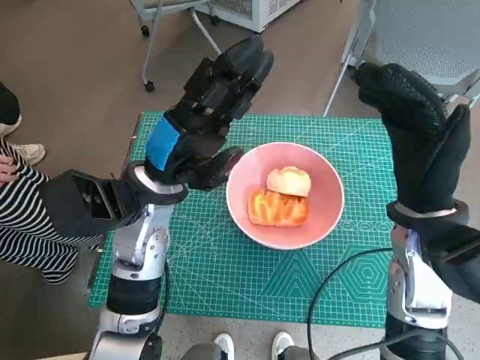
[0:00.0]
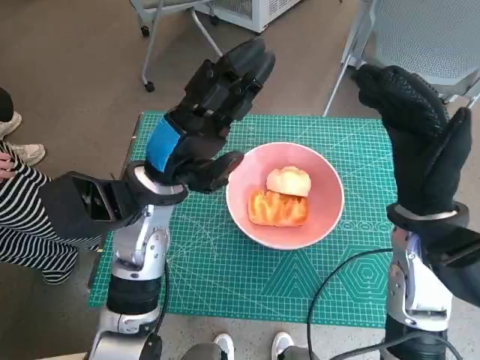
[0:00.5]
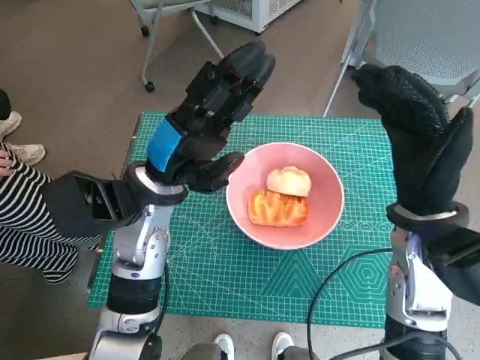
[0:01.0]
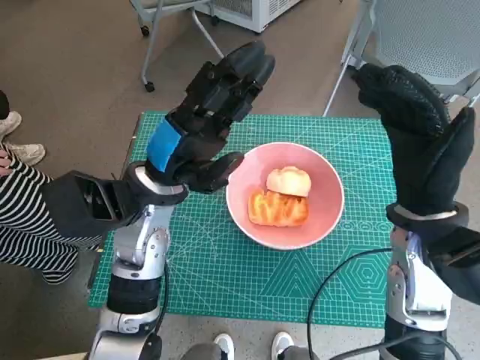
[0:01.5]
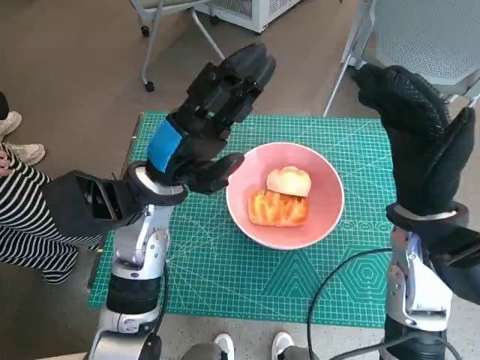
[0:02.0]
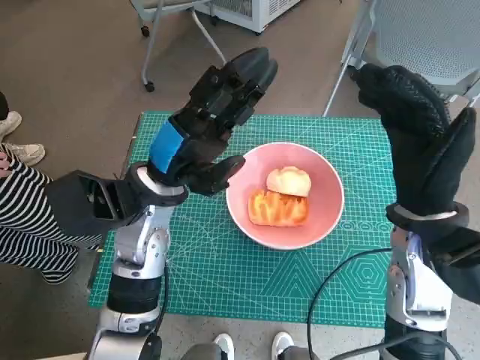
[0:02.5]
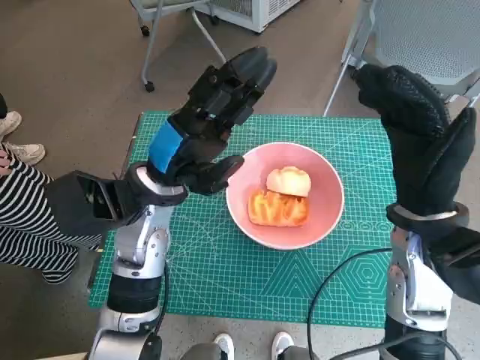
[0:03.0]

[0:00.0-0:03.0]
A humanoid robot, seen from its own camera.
Task of the whole recording: Push the bowl into the center of the table and put the bread into the bowl.
0:00.0 to 0:03.0: Both hands stay about where they are.

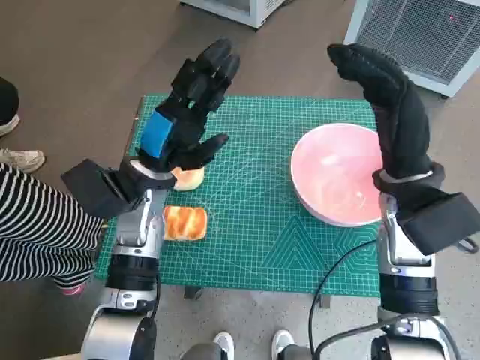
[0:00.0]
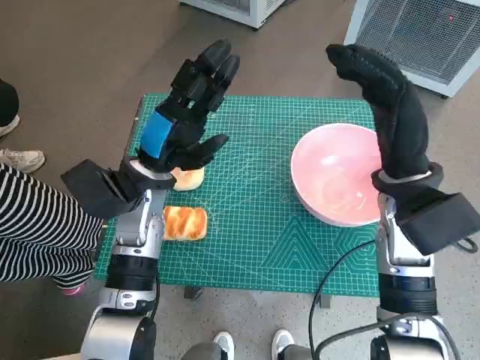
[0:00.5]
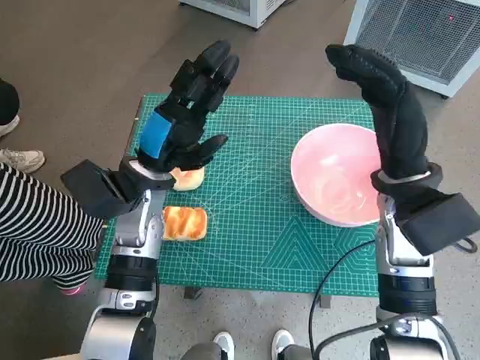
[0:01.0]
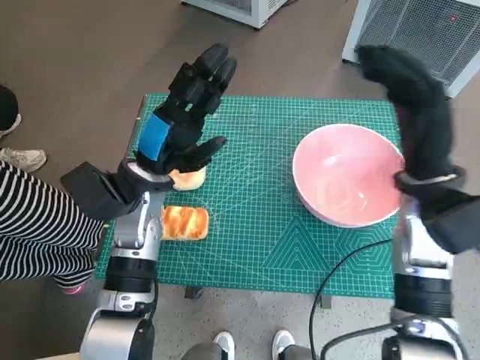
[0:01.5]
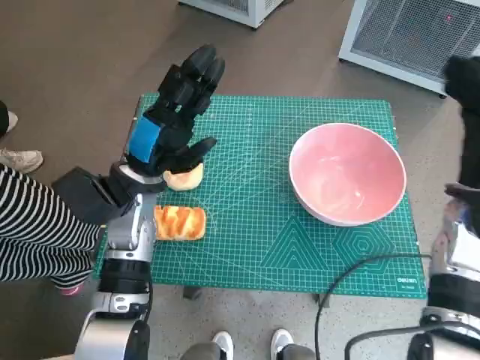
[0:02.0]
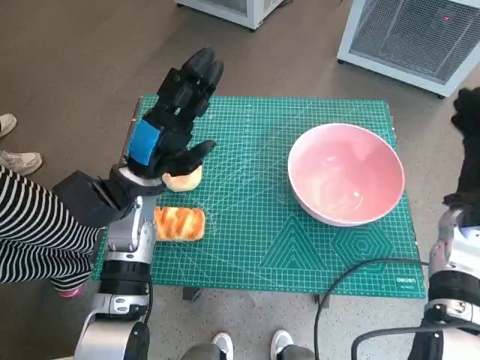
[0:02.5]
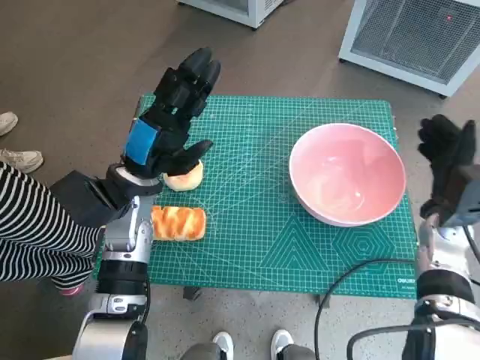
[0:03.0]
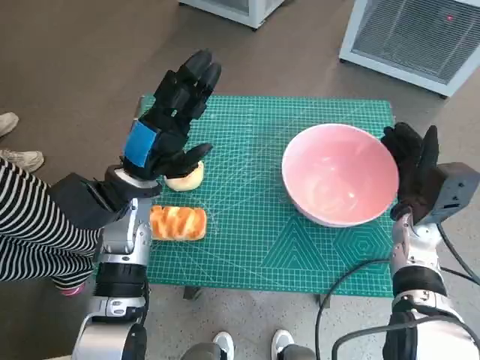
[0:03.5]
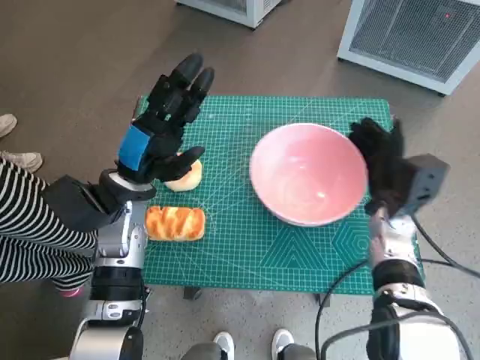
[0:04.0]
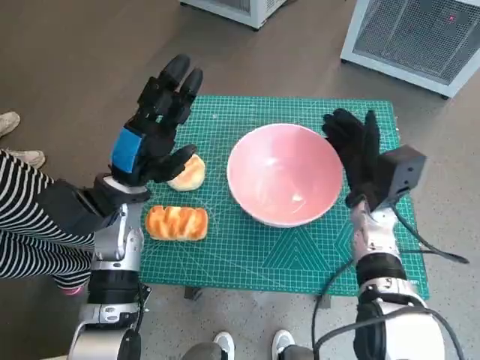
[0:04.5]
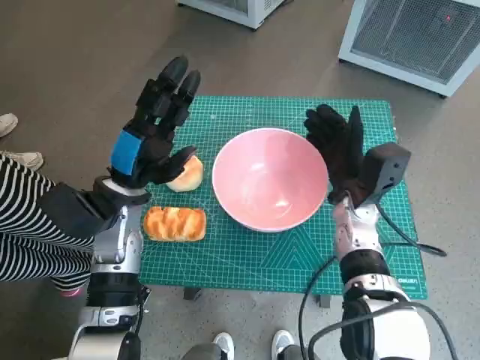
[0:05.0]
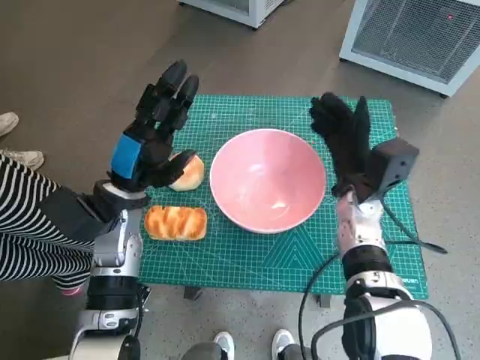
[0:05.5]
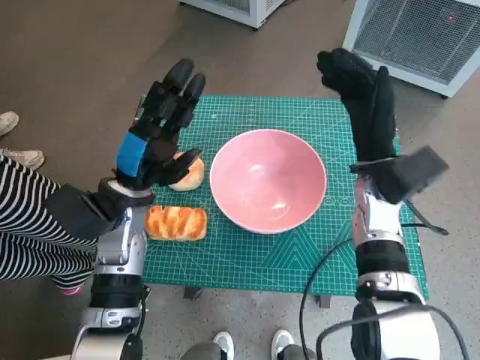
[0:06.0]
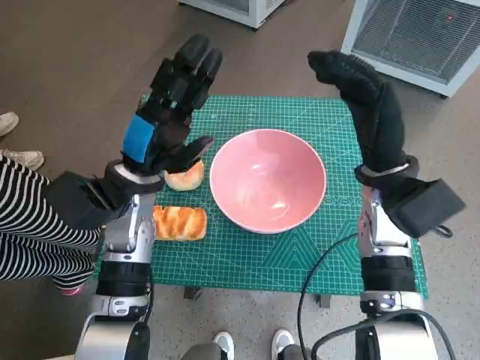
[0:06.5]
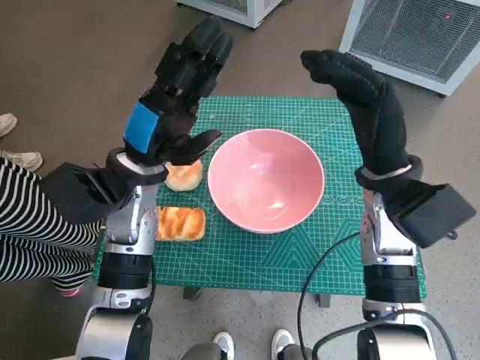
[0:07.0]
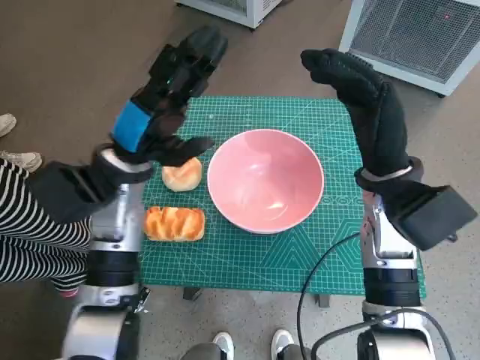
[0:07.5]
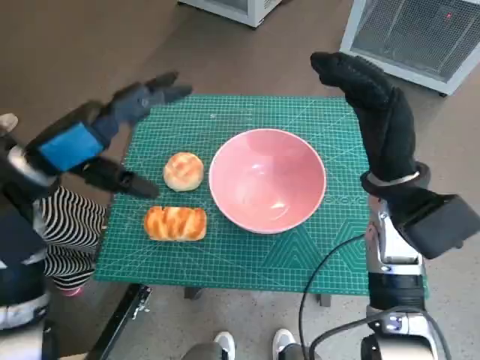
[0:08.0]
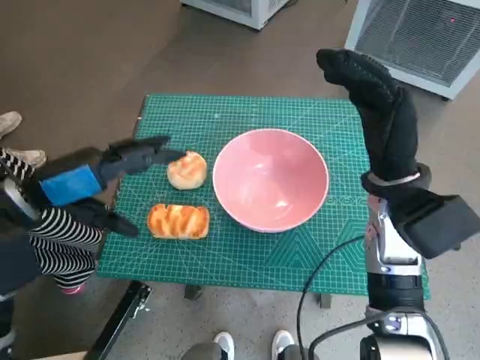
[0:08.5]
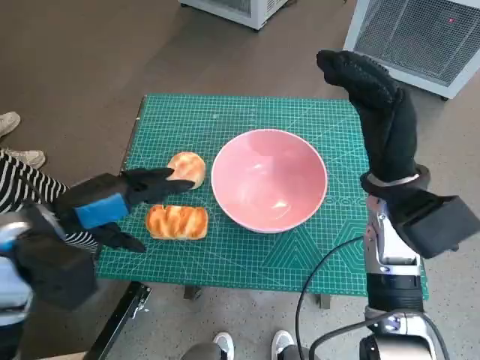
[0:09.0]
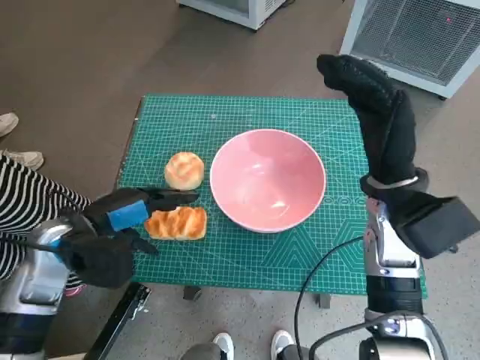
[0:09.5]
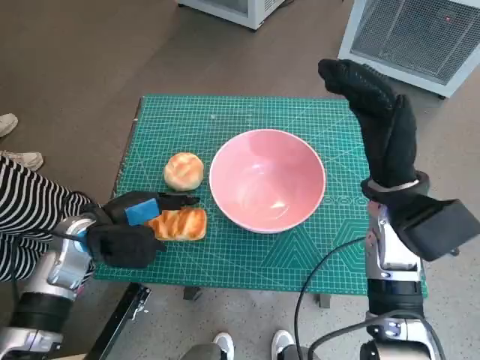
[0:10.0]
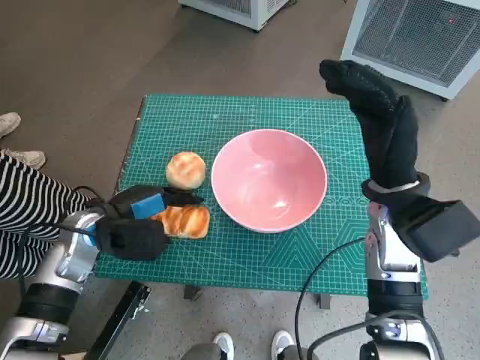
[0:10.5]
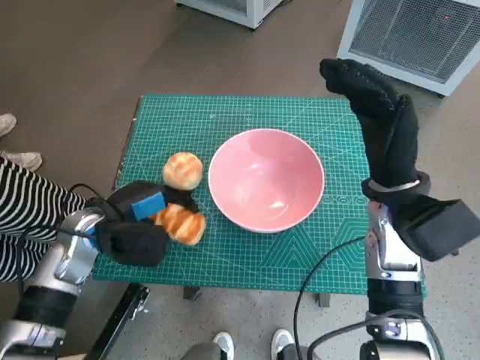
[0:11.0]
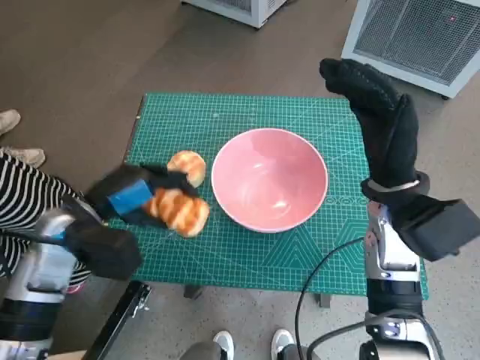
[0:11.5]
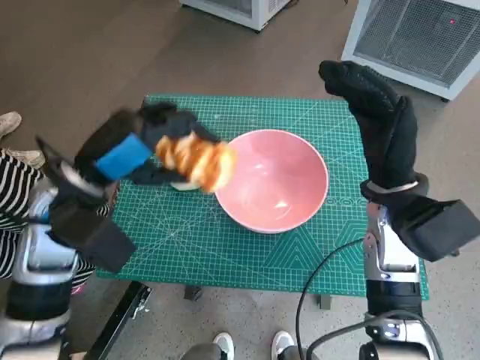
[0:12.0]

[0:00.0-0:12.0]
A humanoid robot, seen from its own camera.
Task of the whole recording: Push the bowl into the center of the table and put the bread into the bowl.
Step, 0:00.0 to 0:05.0: Move the pink bowl to the center of table with right hand.
Step, 0:06.0 to 0:10.5: Grasp the long bread with left hand.
0:02.0 to 0:04.0: The right hand moves downward and to the left, about 10 cm.
0:04.0 to 0:06.0: The right hand goes about 5 cm upward.
0:06.0 to 0:08.0: The left hand is displaced upward and to the left by some 10 cm. Meanwhile the right hand ends up some 5 cm from where it was.
0:08.0 to 0:10.0: The left hand heads downward, covering approximately 15 cm.
0:10.0 to 0:12.0: The left hand shifts approximately 10 cm upward.

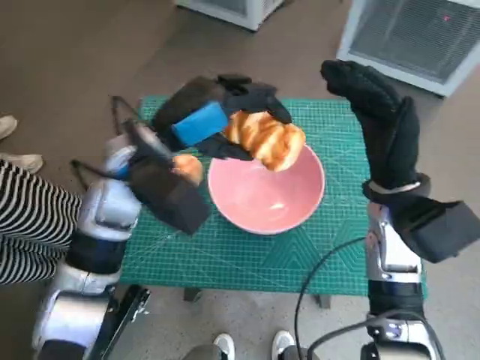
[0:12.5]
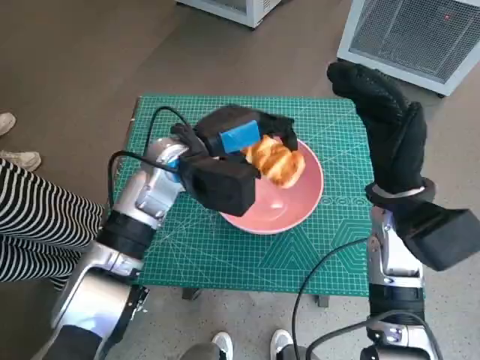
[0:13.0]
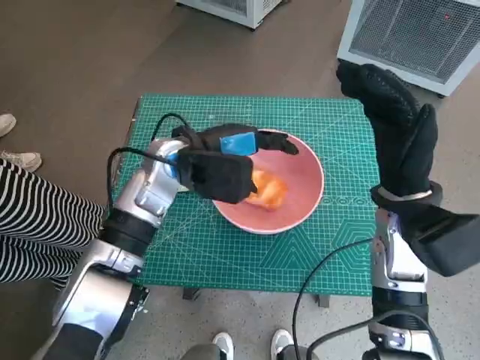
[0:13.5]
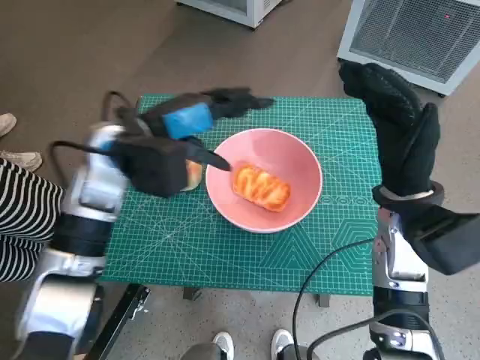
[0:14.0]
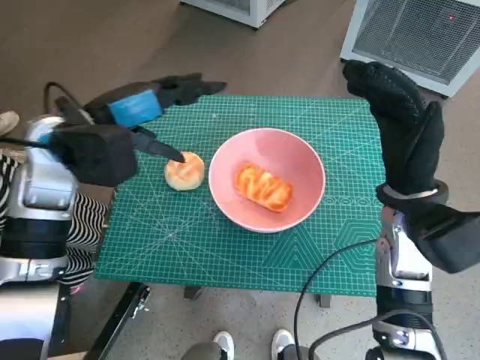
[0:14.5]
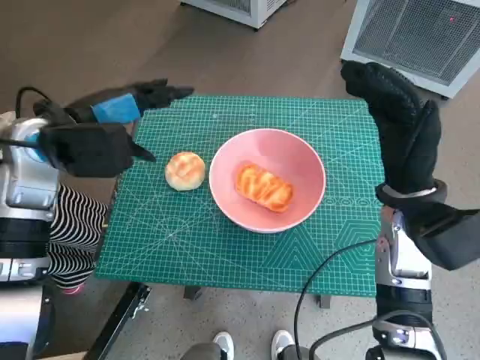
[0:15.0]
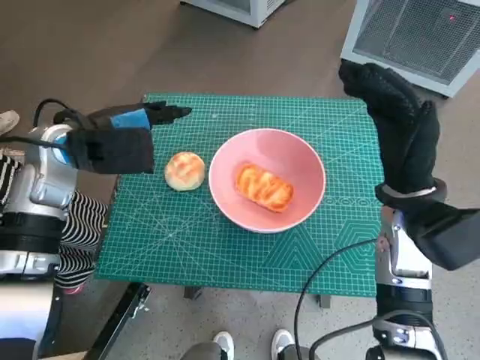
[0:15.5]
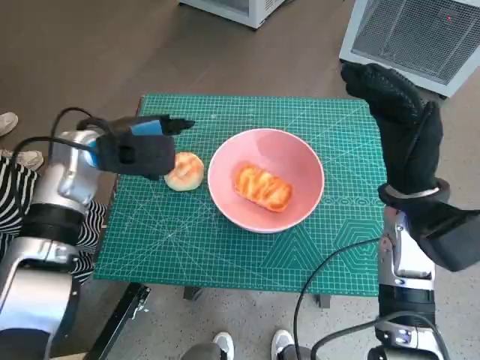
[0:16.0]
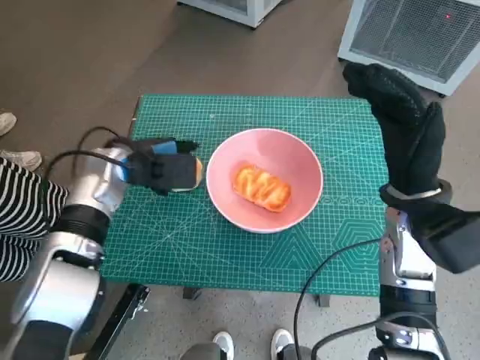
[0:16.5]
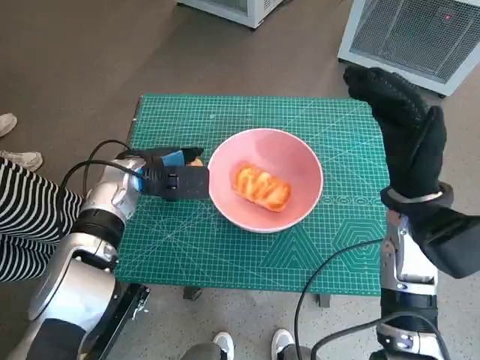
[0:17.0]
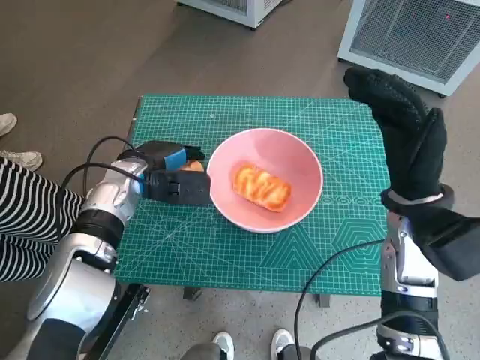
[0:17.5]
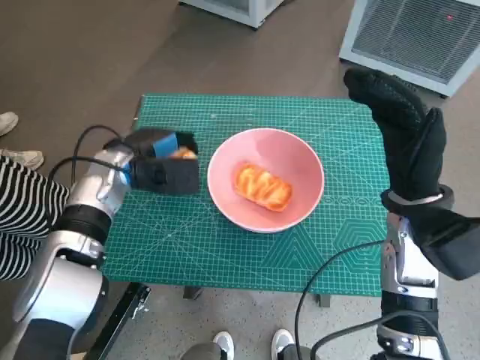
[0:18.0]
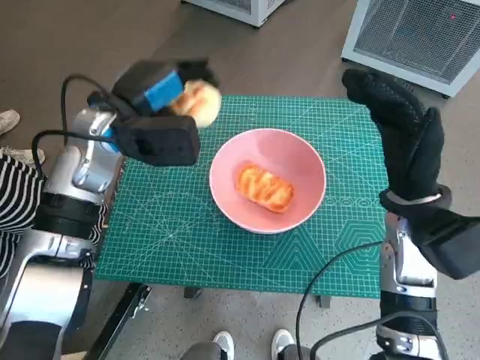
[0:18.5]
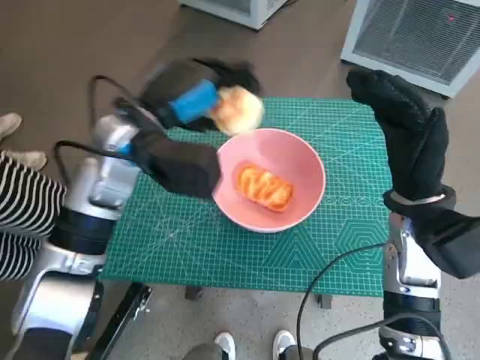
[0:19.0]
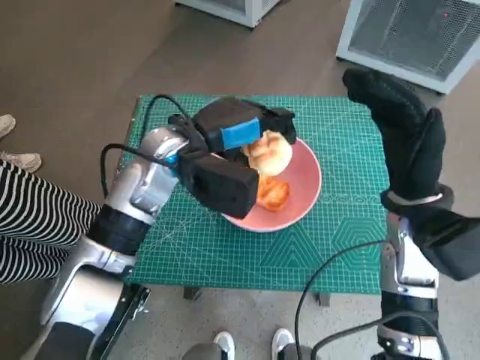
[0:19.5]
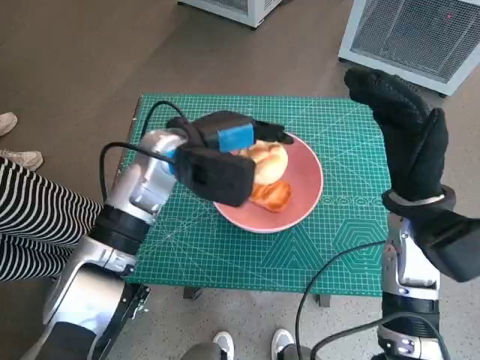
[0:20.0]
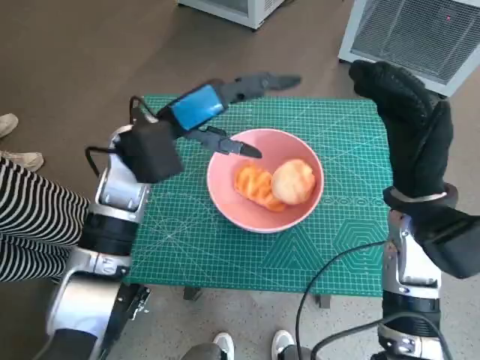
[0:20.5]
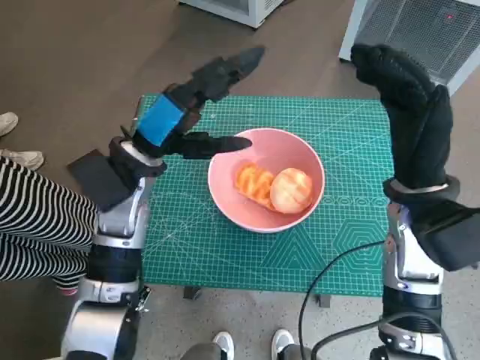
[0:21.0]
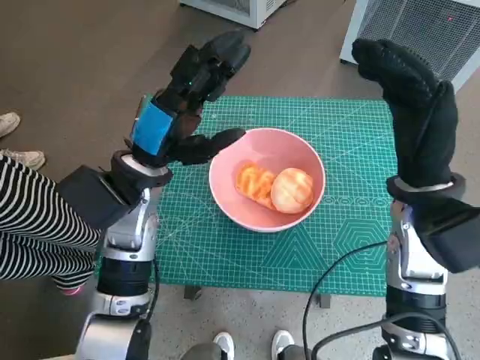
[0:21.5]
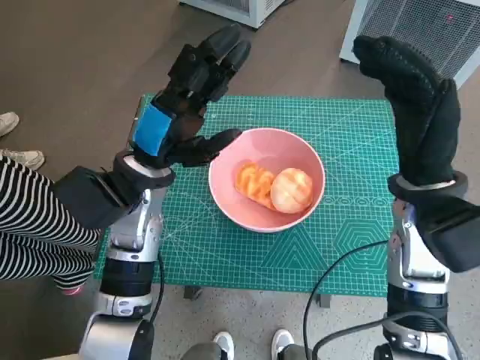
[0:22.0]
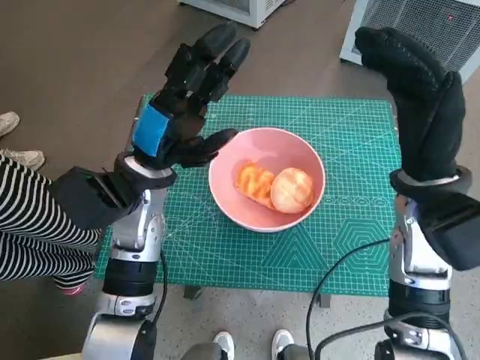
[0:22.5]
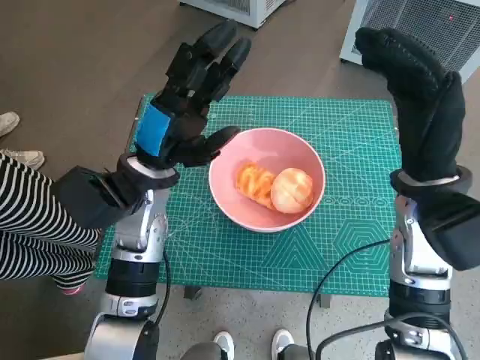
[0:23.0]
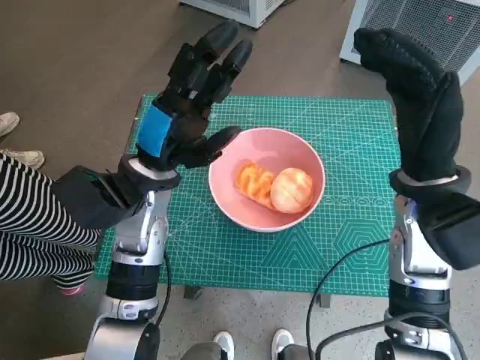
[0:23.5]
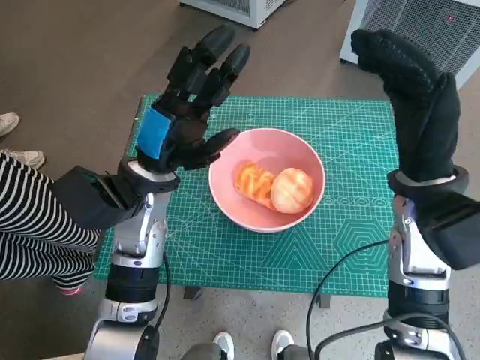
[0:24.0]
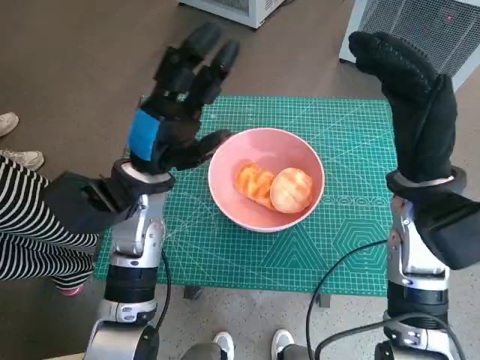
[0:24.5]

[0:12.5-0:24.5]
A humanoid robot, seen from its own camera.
Task of the whole recording: Push the bowl into the center of the table and put the bread into the bowl.
Step, 0:14.0 to 0:17.0: Grasp the round bread with left hand.
Step, 0:17.5 to 0:20.5: Place the round bread in pink bowl with left hand.
0:12.5 to 0:14.5: The left hand heads to the left, covering about 5 cm.
0:14.5 to 0:16.5: The left hand heads downward, covering about 10 cm.
0:16.5 to 0:18.5: The left hand travels upward by some 5 cm.
0:20.5 to 0:22.5: The left hand moves approximately 5 cm.
0:22.5 to 0:24.5: The two hands keep their place.
